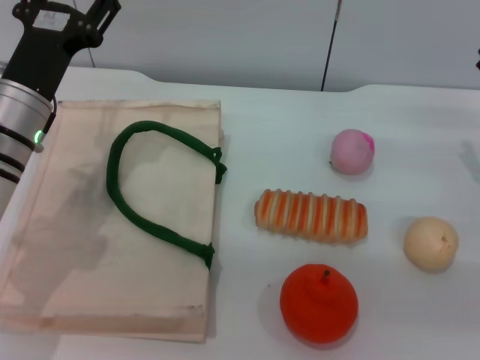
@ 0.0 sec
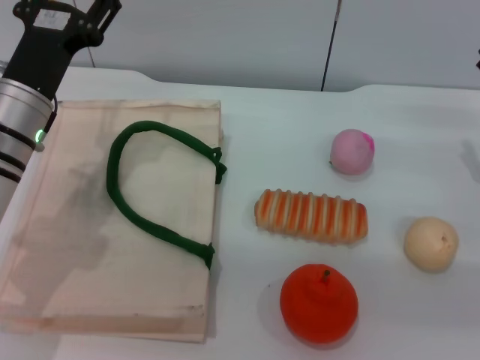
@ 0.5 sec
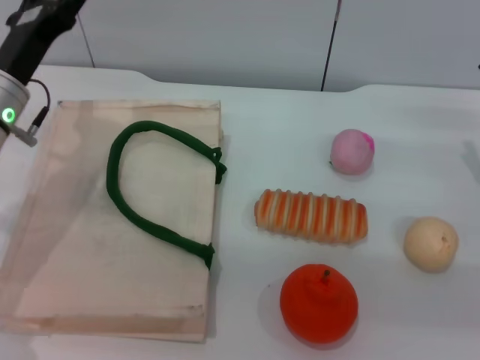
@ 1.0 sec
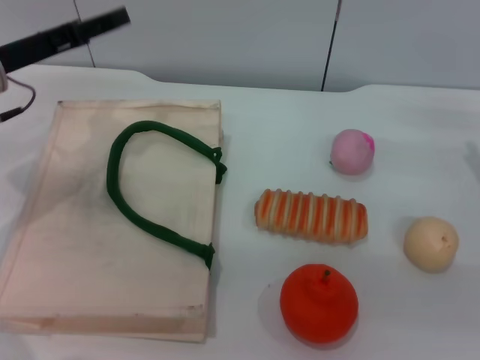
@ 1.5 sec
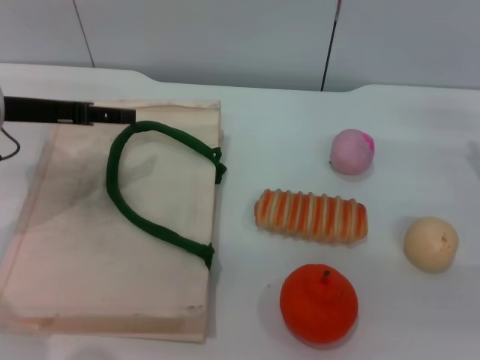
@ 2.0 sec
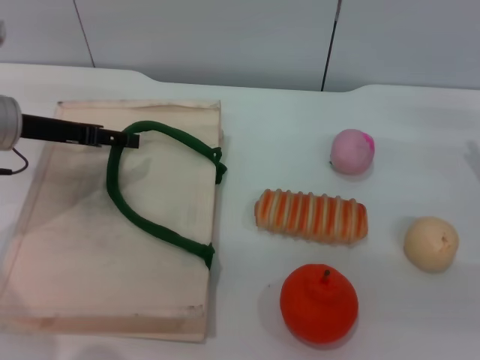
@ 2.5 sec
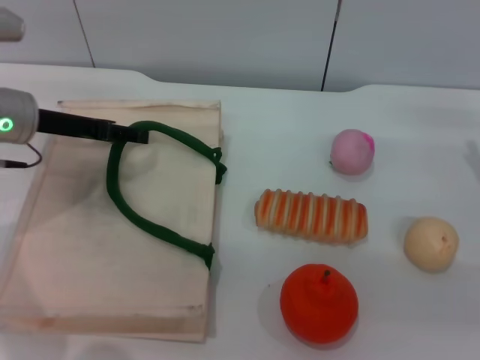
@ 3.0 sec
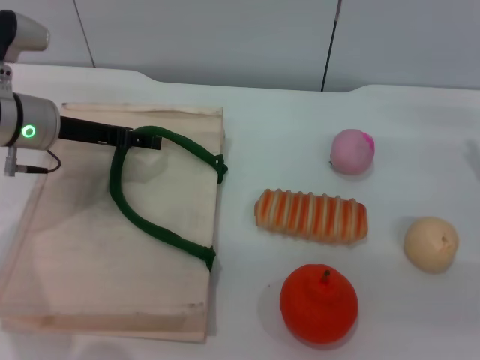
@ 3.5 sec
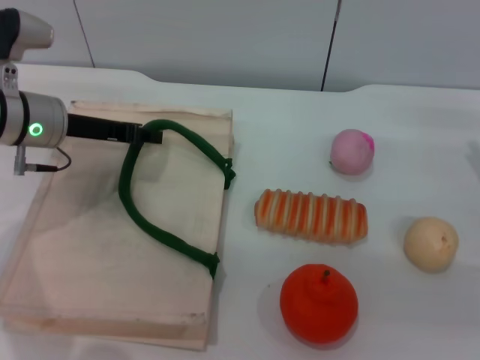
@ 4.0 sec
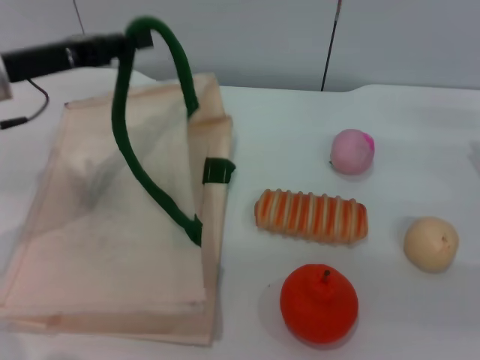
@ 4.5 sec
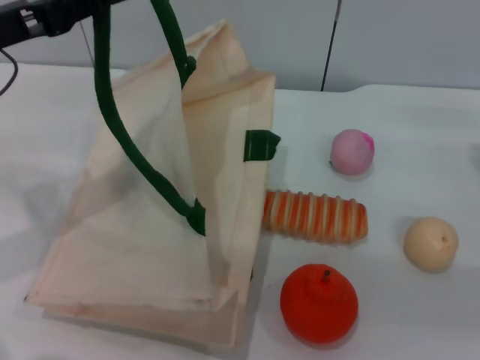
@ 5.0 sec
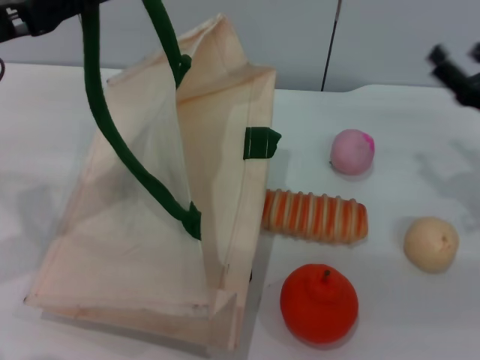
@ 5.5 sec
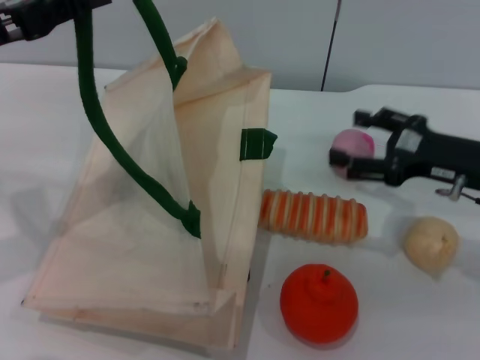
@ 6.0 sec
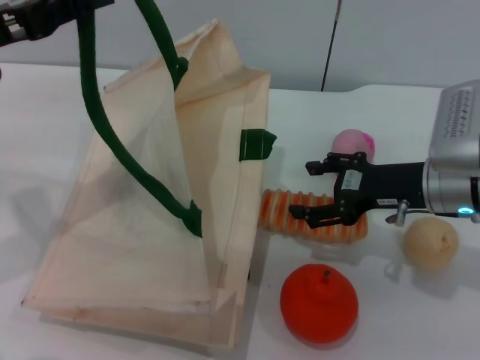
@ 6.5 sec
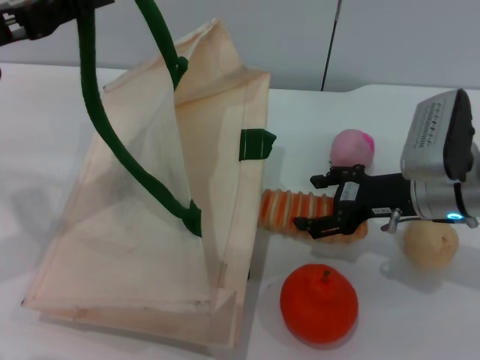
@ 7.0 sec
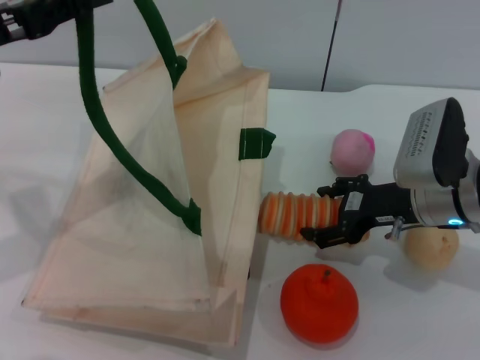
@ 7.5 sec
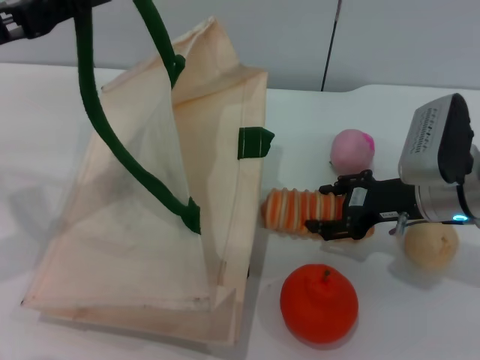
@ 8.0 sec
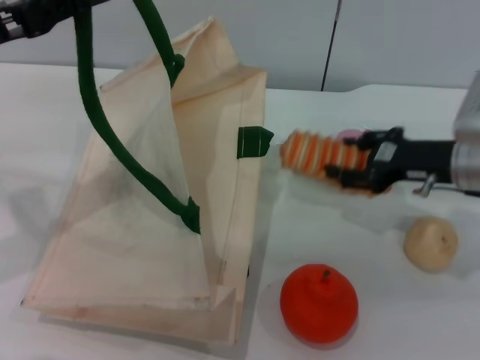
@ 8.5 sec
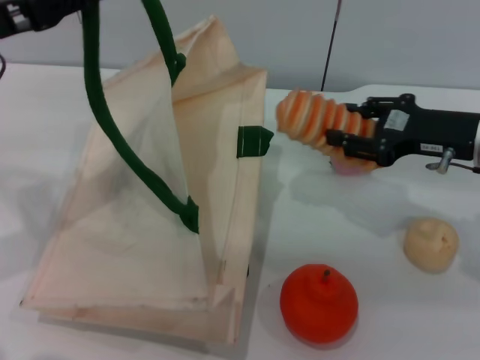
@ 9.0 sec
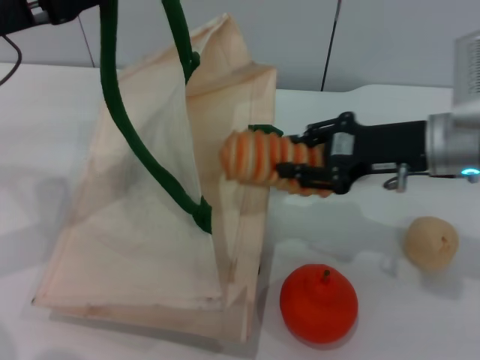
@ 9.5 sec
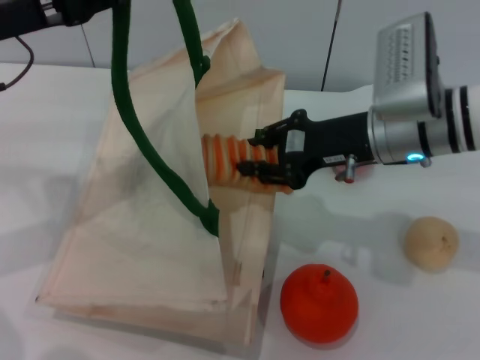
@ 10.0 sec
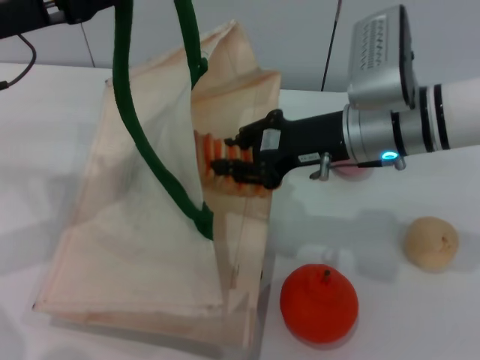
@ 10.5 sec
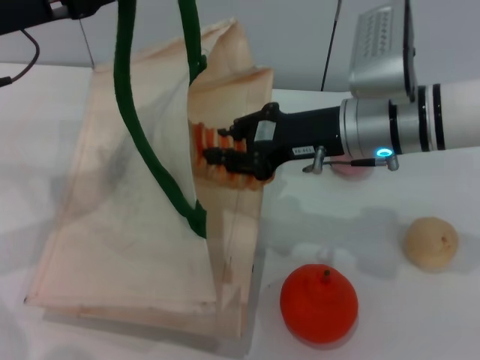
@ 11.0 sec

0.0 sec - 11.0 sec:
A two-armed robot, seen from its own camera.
Task of the whole recording: pick up the bread from the table and place it in the white handbag.
Step, 0.0 sec - 5.0 sec: Lift the woven bag with the left gripper to open it.
Step, 5.5 sec - 8.0 sec: Pick up the bread with the right gripper.
0.0 sec - 2.0 sec: The left gripper goes some 5 cm to the left.
2.0 sec - 3.5 sec: The left gripper ends up some 5 cm from where it was.
3.5 sec - 5.5 sec: The left gripper is displaced upward and backward by approximately 10 cm, and closes.
5.5 sec - 7.5 sec: The right gripper travels to the left by some 10 cm.
7.5 sec - 9.0 sec: The right gripper goes roughly 5 cm upward, and closes.
9.0 sec - 11.0 sec: The right gripper travels to the left by roughly 15 cm, and closes up.

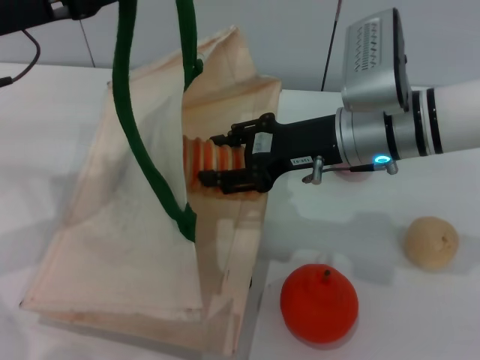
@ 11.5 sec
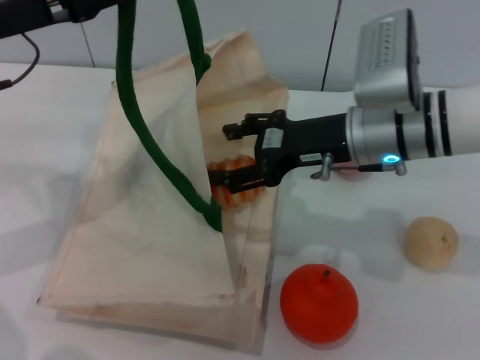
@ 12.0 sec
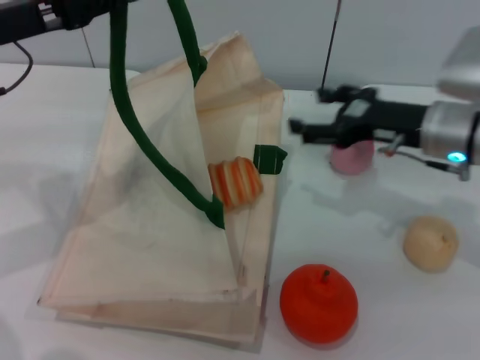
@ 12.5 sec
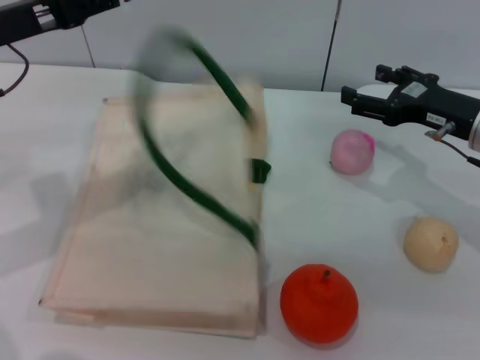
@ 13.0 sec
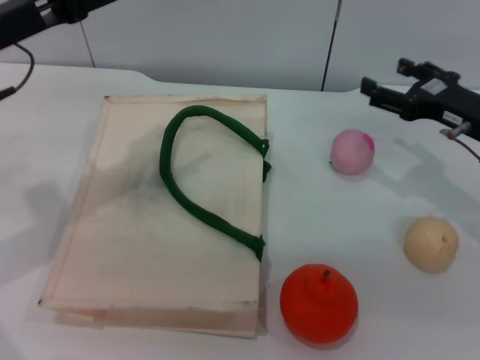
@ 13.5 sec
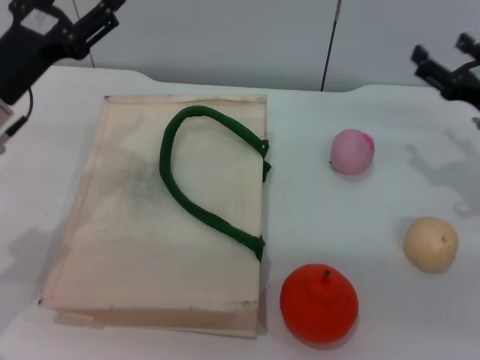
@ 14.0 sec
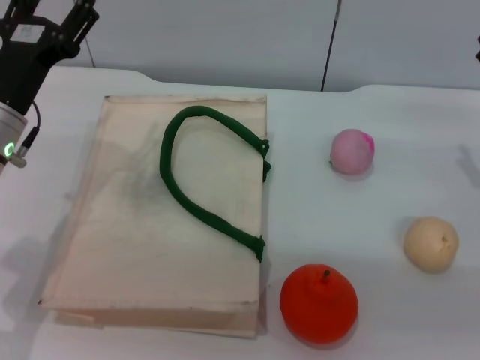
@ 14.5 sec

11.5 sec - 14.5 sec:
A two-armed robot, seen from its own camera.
Task of the whole recording: pick up the bread from the table and place it in the white handbag.
Step, 12.5 sec - 13.5 sec: Lower the woven bag with the left gripper to close it.
11.5 sec - 13.0 sec: The right gripper moves to the right, about 15 cm, and opens up.
13.0 sec - 14.5 sec: The right gripper travels to the right by about 5 cm, while the left gripper is displaced downward by roughly 10 cm, and opens its fingers.

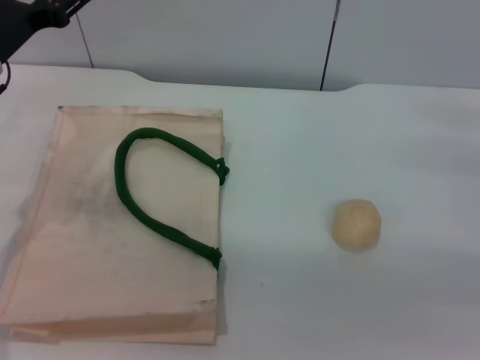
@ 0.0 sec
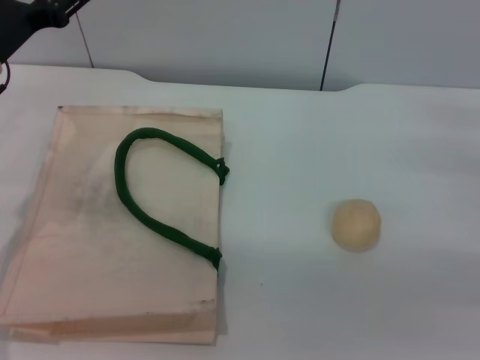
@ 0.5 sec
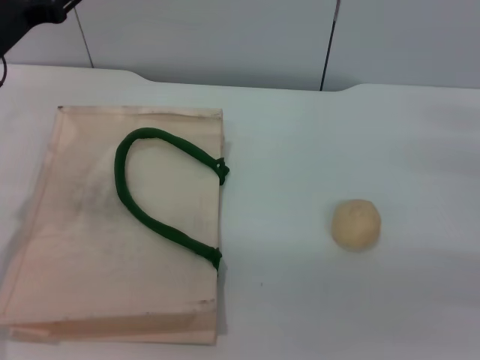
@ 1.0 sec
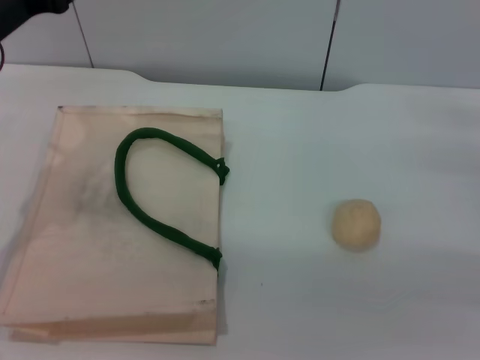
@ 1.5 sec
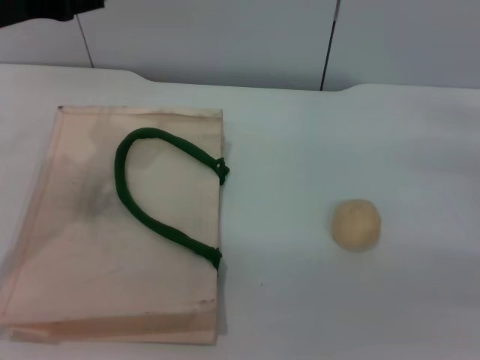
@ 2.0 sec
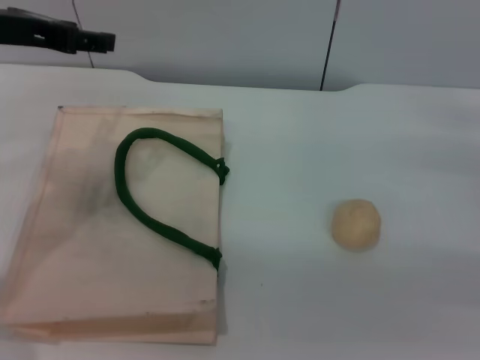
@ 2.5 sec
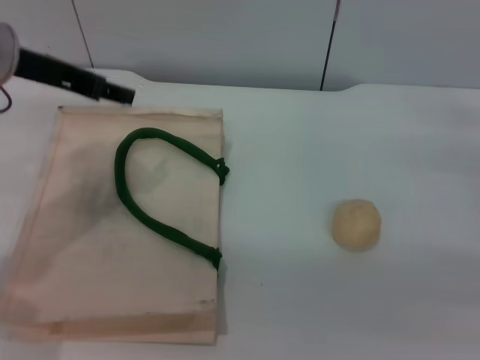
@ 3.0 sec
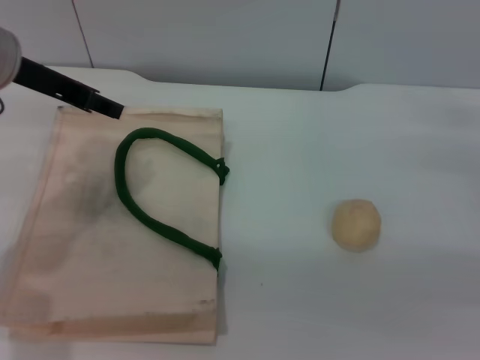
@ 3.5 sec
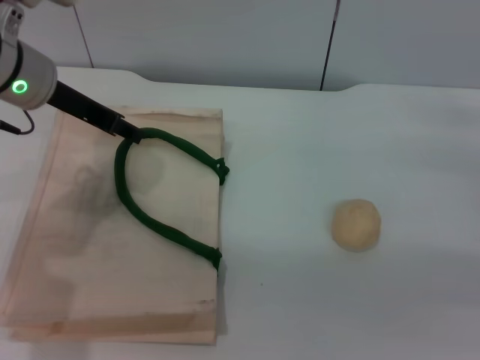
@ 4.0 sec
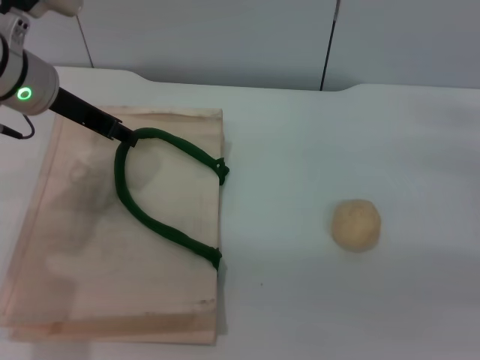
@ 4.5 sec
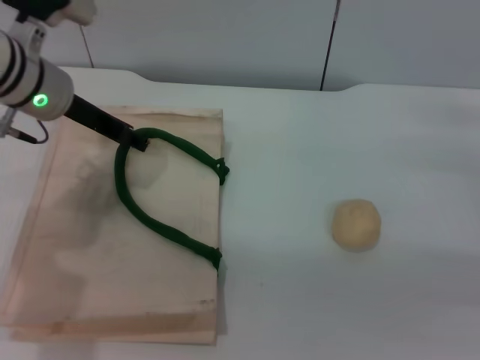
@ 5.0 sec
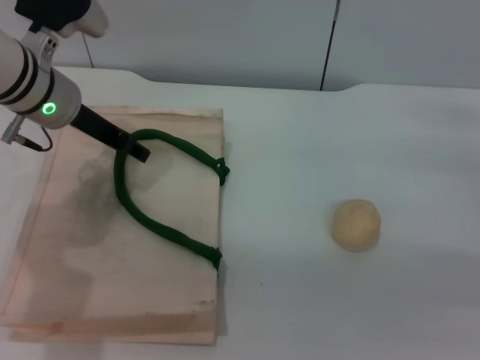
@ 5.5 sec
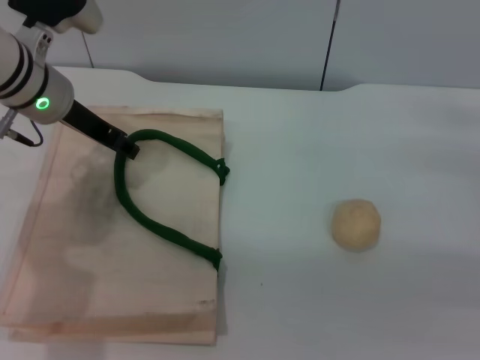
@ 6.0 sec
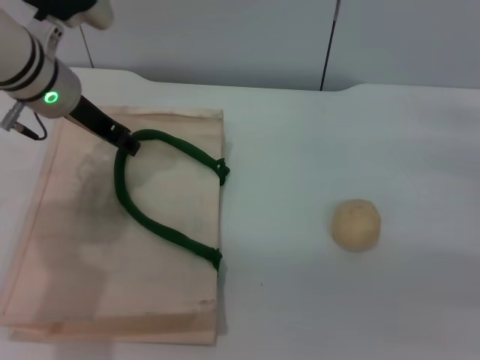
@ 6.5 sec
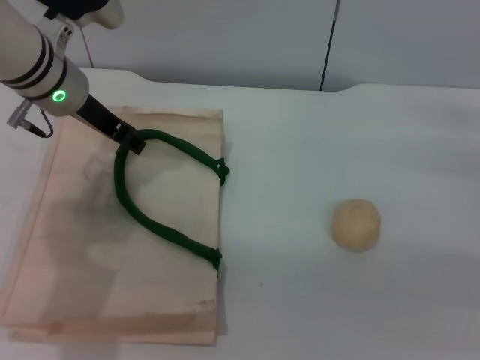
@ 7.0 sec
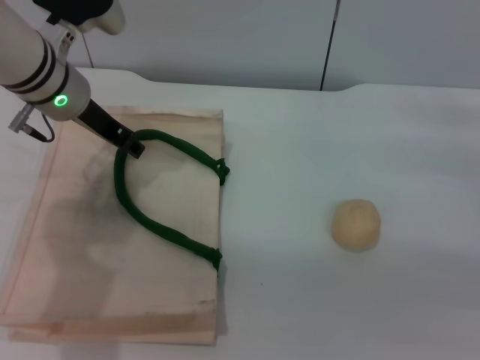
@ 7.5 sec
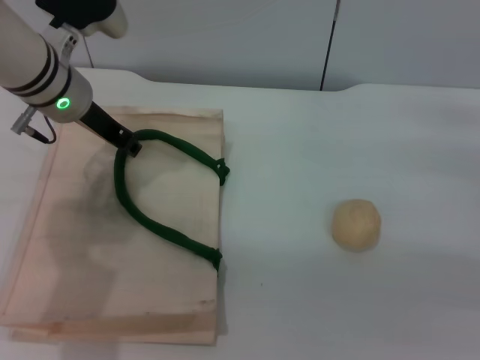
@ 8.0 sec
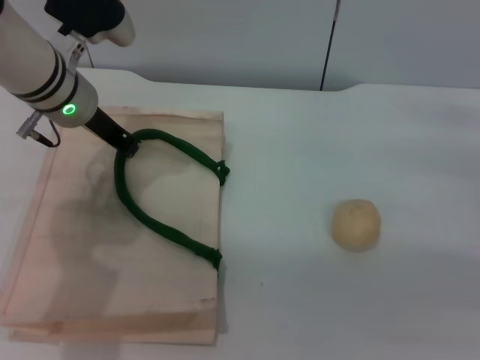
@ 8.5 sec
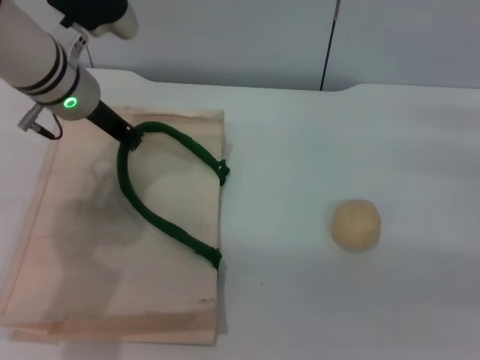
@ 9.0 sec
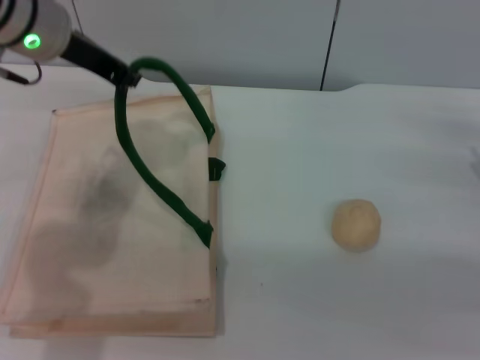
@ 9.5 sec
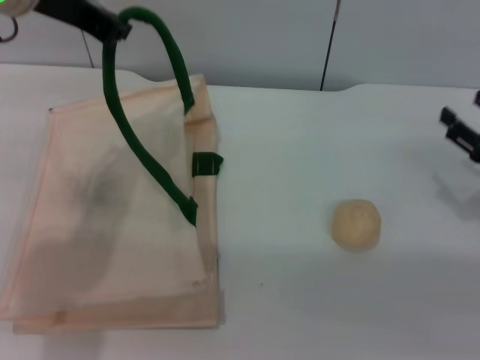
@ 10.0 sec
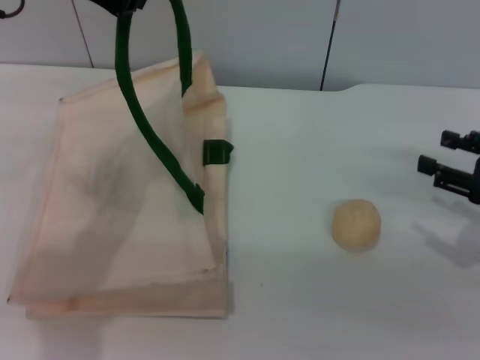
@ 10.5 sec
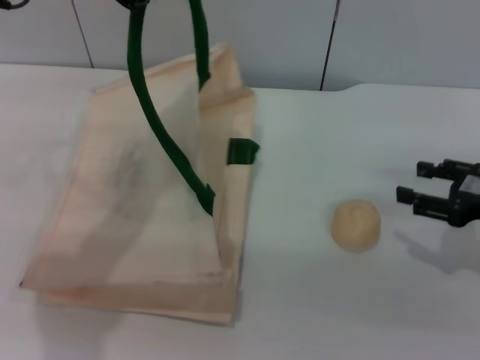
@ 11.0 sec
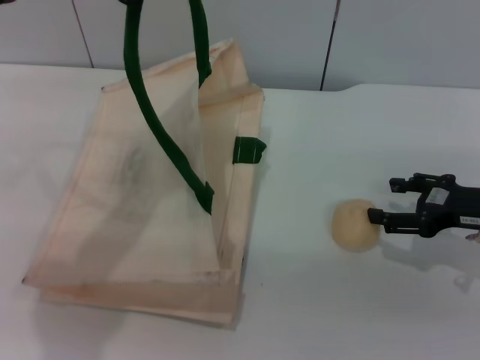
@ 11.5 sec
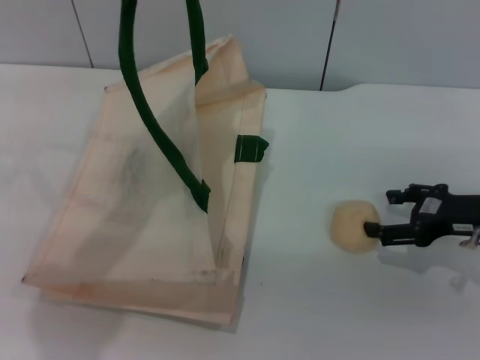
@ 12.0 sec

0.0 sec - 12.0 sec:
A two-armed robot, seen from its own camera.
Task of the whole recording: pick up the egg yolk pastry from the table and place it in the white handbag.
Step, 0.0 sec - 9.5 sec: Lift the woven bag with the left gripper to open it.
0.0 sec - 2.0 sec: The left gripper shifts some 10 cm upward.
2.0 sec - 4.0 sec: The left gripper ends up roughly 5 cm from where it was.
4.0 sec - 8.0 sec: The grippers make only small movements.
8.0 sec - 10.0 sec: The left gripper is displaced upward by some 15 cm, and closes up.
10.0 sec - 12.0 sec: The left gripper changes place by approximately 5 cm. The right gripper opens its fingers.
